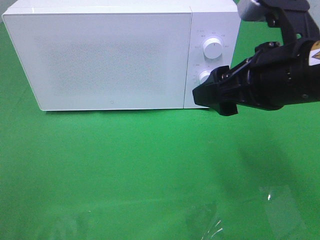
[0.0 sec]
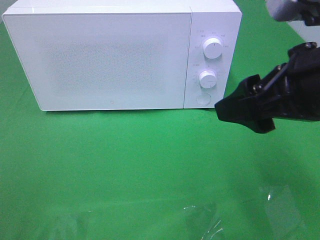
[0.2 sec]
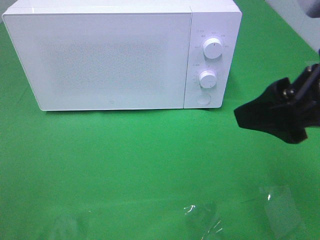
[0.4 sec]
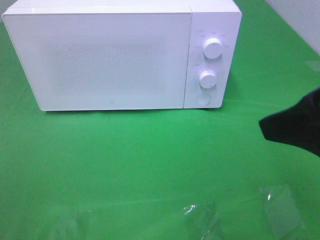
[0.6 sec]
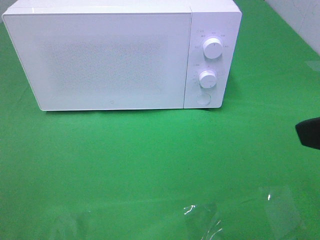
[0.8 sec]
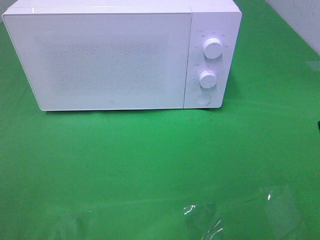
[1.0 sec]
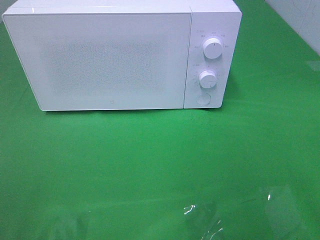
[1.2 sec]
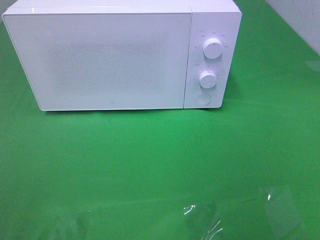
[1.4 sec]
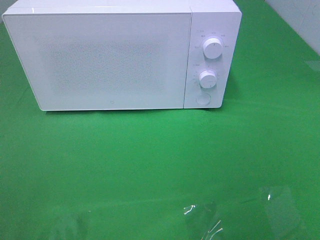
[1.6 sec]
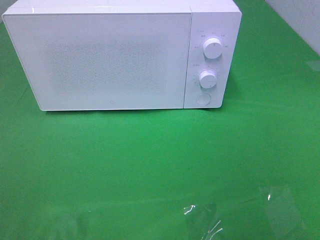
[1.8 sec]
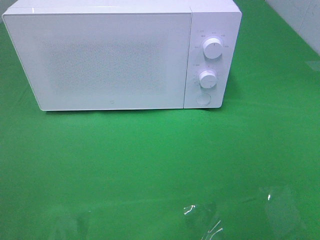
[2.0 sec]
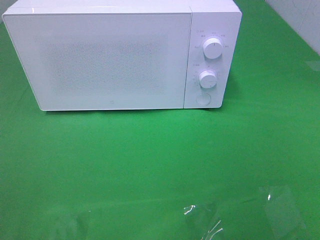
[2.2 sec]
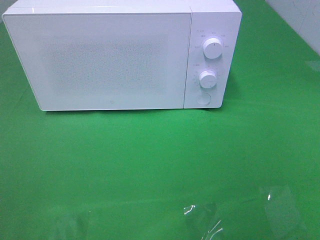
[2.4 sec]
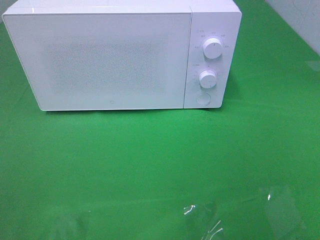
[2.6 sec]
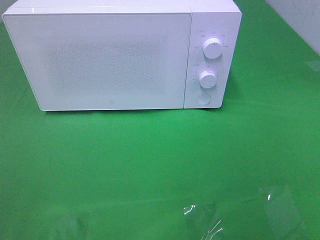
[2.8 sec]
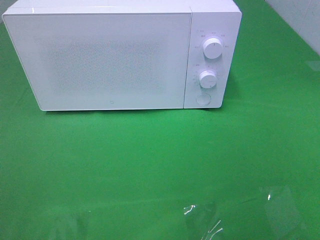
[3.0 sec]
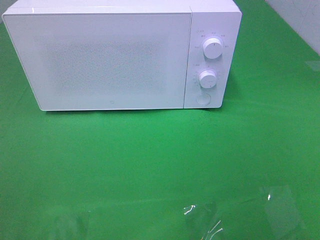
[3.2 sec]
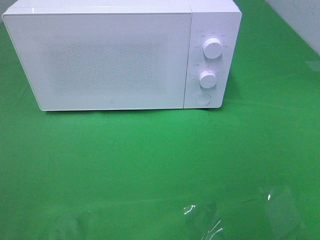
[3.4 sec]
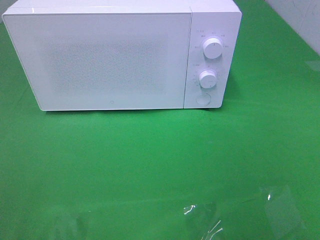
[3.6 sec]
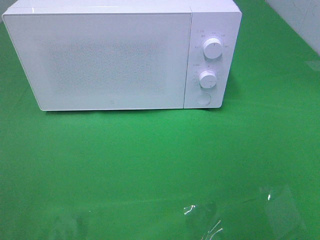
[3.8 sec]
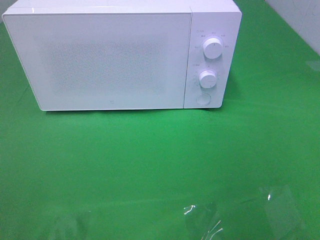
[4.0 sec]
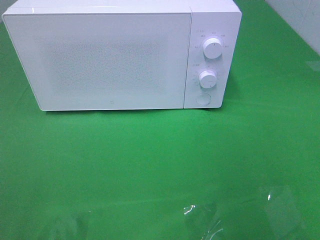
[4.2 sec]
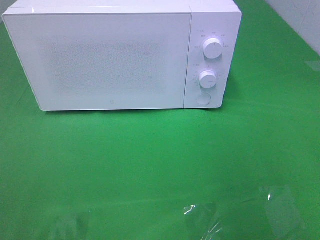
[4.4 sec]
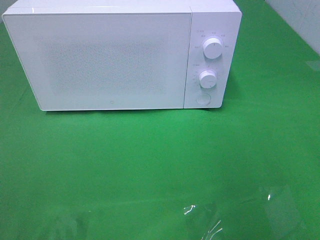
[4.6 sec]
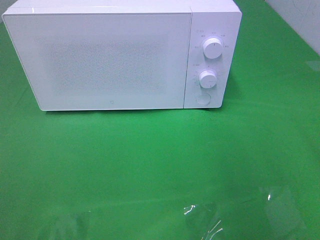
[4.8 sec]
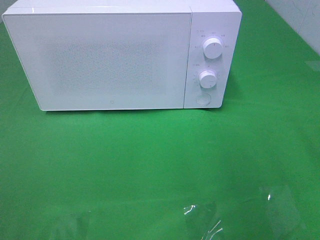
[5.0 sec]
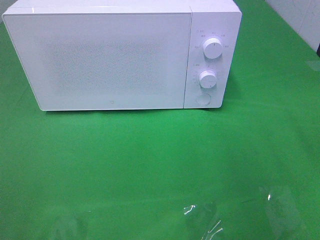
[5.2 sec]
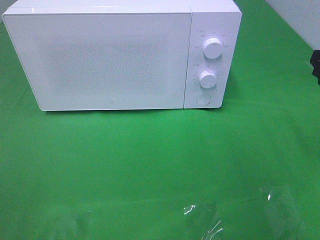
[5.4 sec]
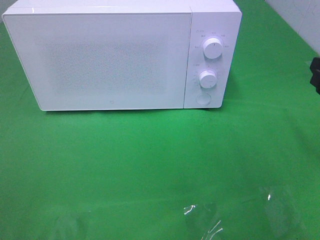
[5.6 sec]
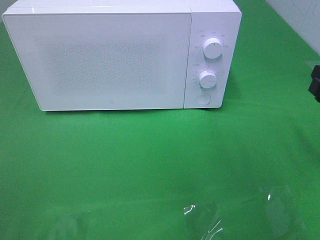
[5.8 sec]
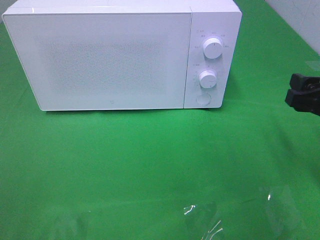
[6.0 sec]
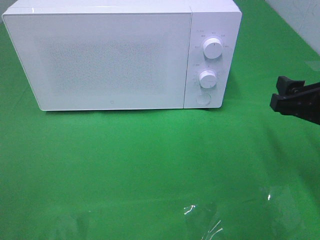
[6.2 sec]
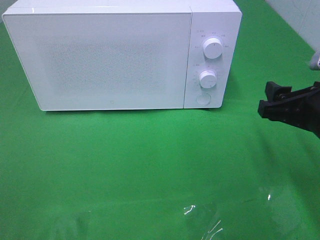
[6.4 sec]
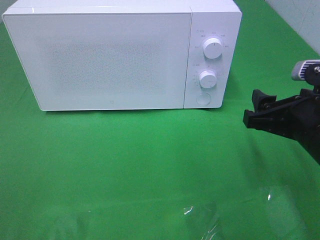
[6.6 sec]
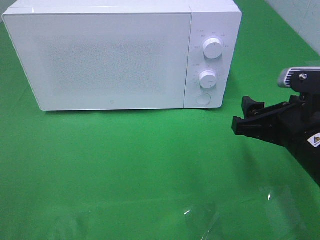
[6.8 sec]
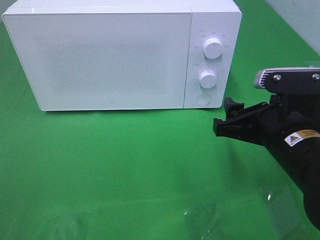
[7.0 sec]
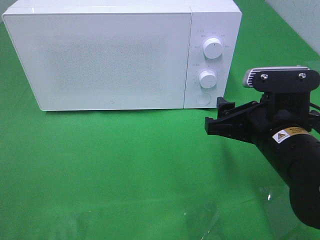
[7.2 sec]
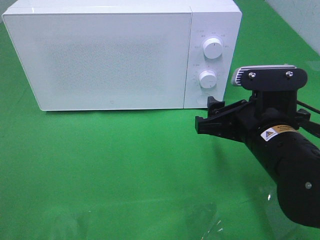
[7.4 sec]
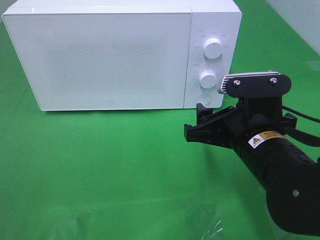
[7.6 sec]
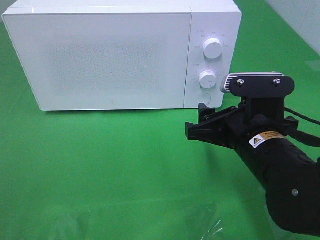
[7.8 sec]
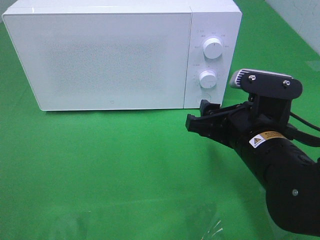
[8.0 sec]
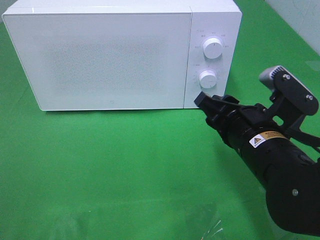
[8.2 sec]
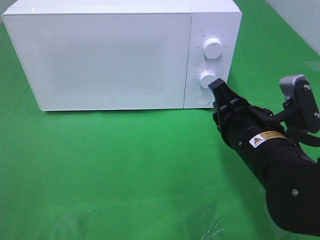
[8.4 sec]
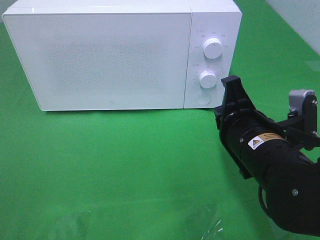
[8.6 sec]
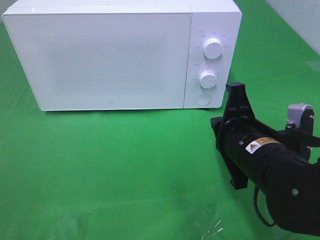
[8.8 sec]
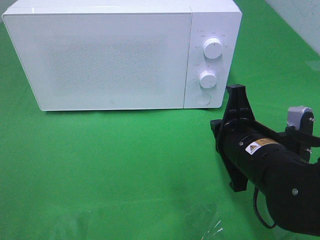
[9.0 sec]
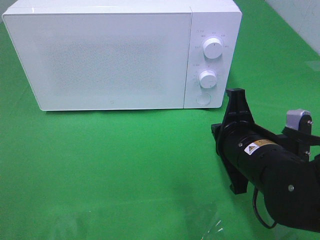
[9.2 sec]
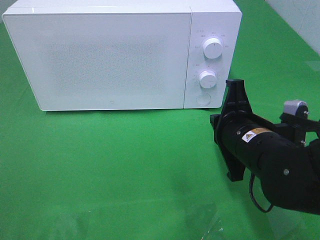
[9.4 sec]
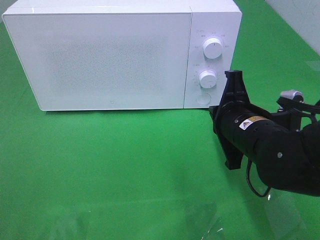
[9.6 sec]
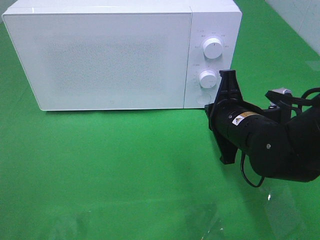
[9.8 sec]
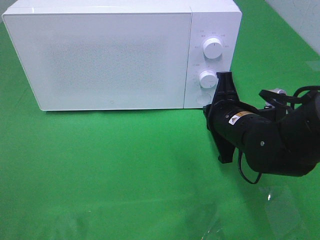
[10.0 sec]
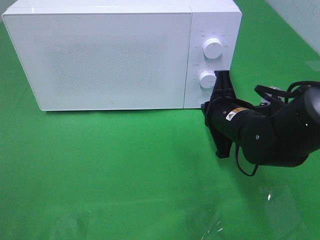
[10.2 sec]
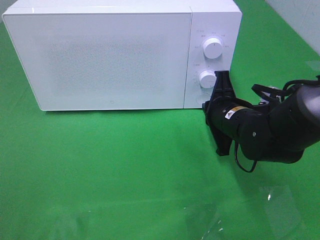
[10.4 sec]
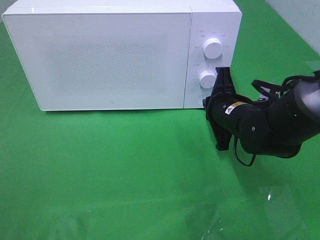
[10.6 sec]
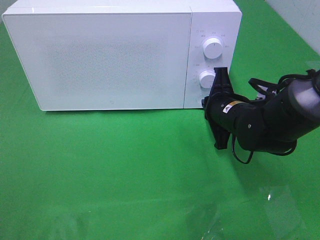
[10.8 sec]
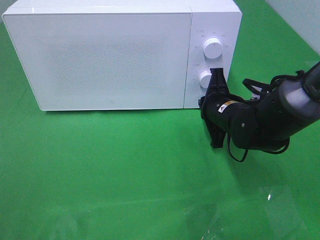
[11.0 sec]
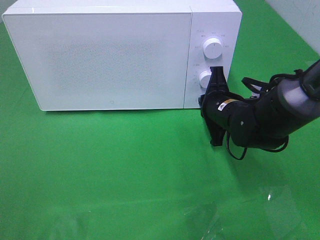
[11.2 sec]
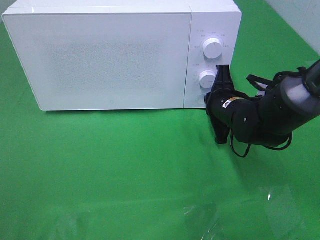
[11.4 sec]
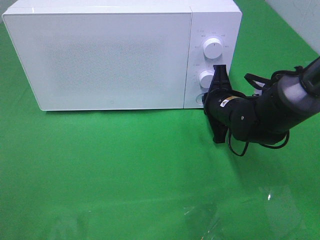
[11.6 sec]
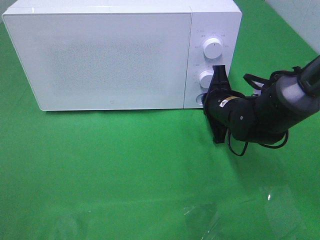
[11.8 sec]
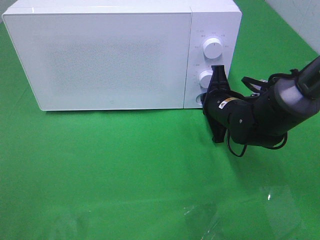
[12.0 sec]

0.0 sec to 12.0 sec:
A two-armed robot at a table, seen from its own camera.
Task of the whole recording: Heat the burger.
0.0 sec to 1.6 sec: The right gripper is displaced backward and to the right by approximately 20 cm.
4.4 sec to 6.0 sec: The right gripper moves downward and forward, some 15 cm.
6.0 sec to 7.6 sec: The right gripper is displaced to the left by some 15 cm.
7.6 sec to 9.0 sec: The right gripper closes its fingers.
9.0 sec to 10.4 sec: The right gripper goes about 10 cm forward.
10.4 sec to 12.0 sec: The grippers stay close to where they were, moving slightly.

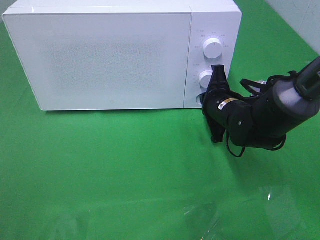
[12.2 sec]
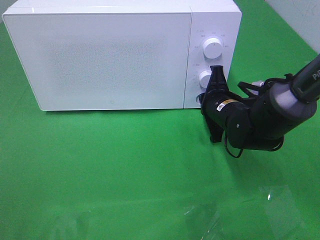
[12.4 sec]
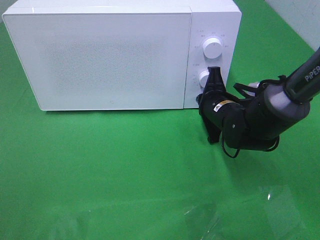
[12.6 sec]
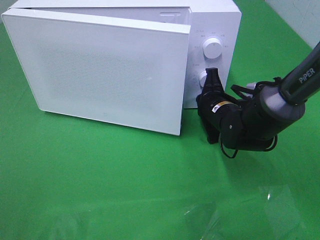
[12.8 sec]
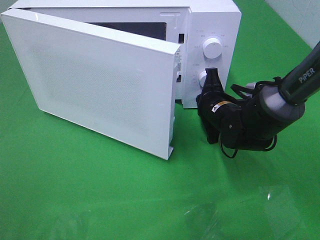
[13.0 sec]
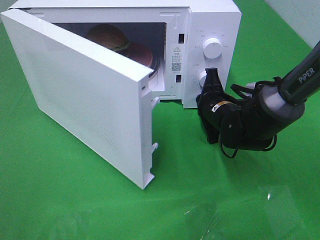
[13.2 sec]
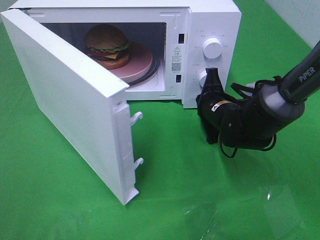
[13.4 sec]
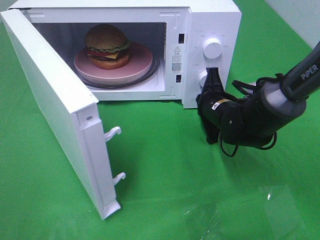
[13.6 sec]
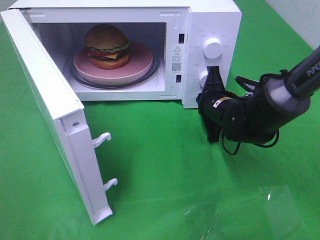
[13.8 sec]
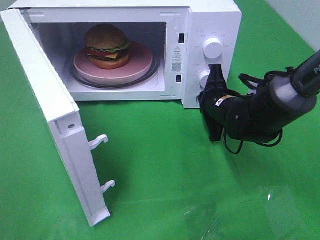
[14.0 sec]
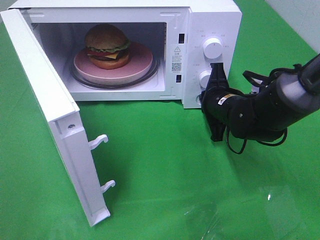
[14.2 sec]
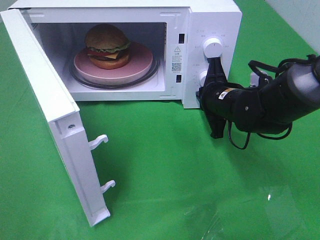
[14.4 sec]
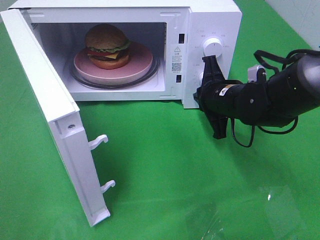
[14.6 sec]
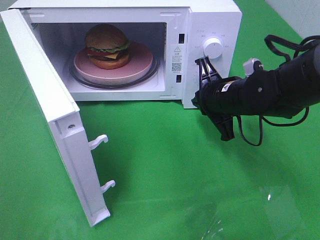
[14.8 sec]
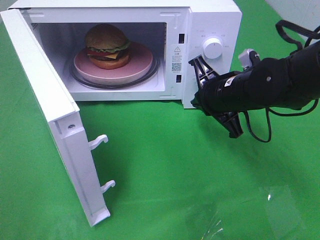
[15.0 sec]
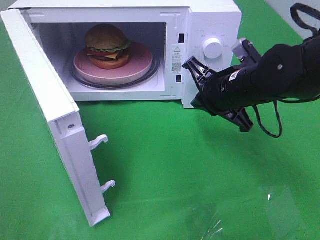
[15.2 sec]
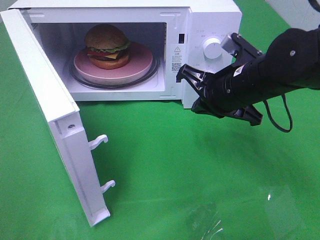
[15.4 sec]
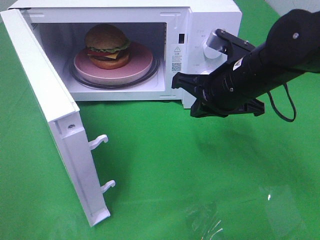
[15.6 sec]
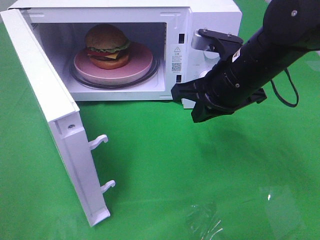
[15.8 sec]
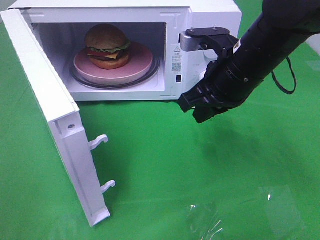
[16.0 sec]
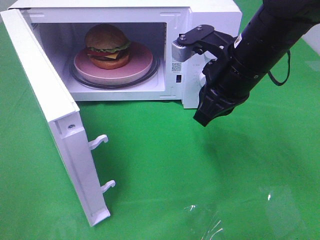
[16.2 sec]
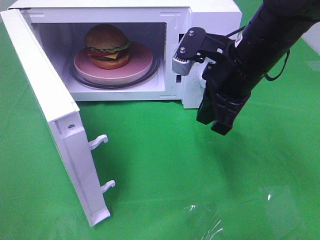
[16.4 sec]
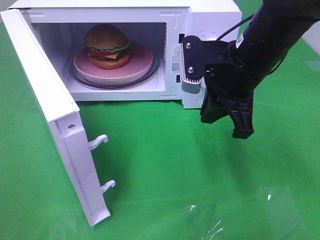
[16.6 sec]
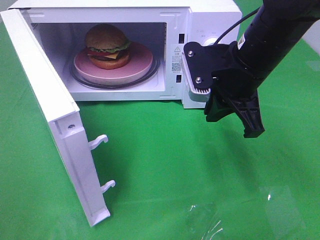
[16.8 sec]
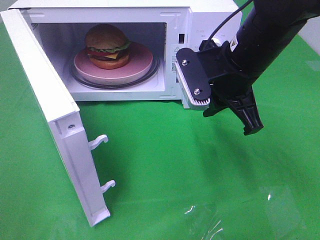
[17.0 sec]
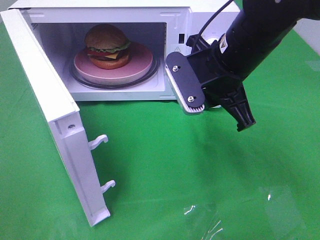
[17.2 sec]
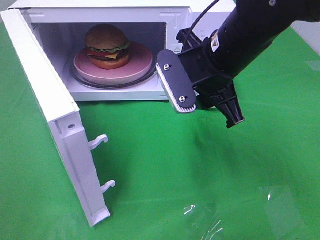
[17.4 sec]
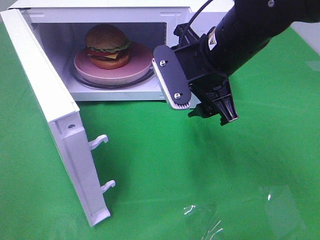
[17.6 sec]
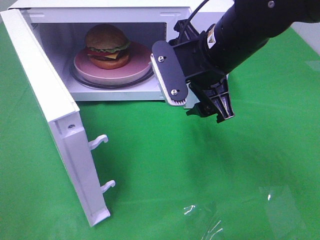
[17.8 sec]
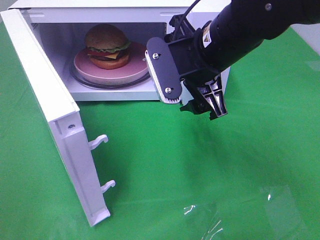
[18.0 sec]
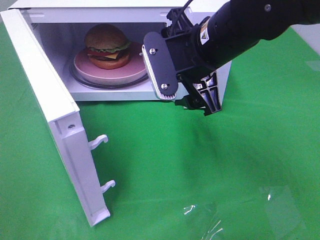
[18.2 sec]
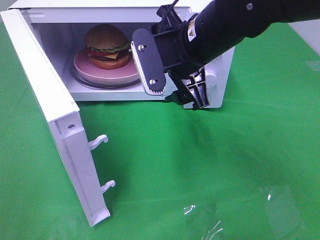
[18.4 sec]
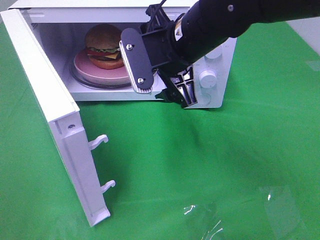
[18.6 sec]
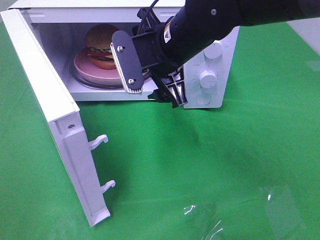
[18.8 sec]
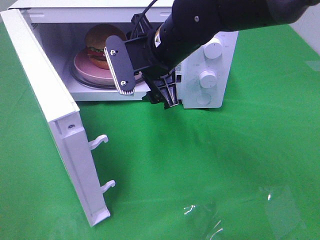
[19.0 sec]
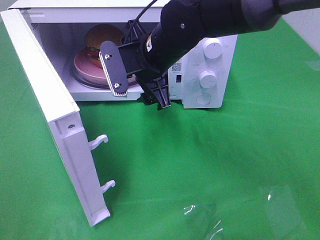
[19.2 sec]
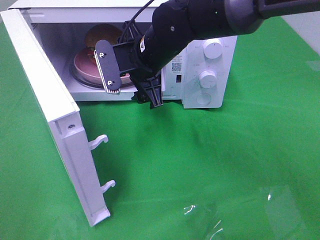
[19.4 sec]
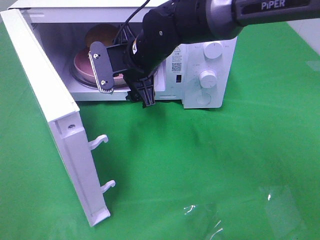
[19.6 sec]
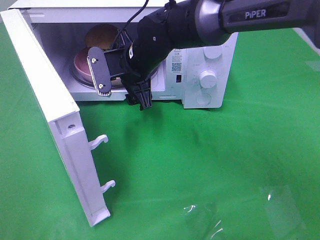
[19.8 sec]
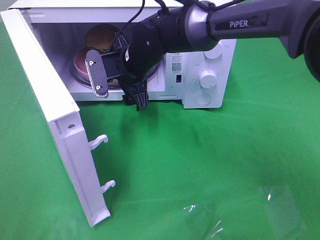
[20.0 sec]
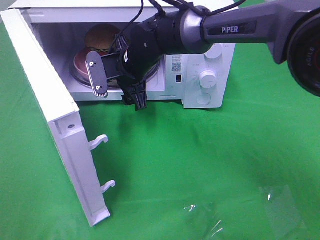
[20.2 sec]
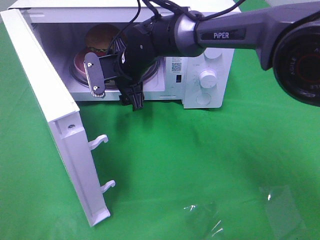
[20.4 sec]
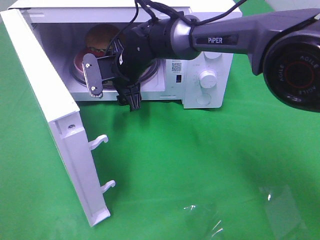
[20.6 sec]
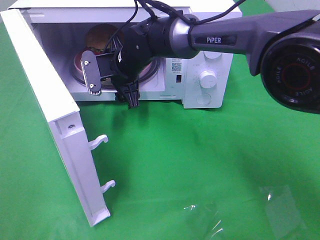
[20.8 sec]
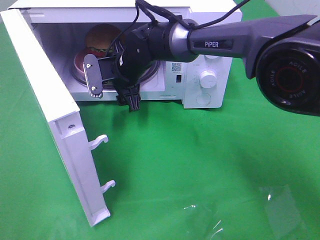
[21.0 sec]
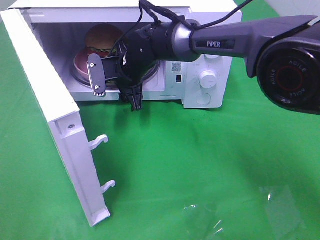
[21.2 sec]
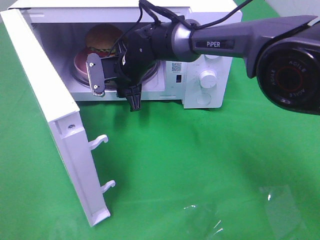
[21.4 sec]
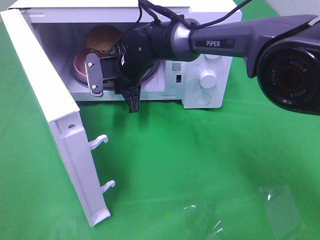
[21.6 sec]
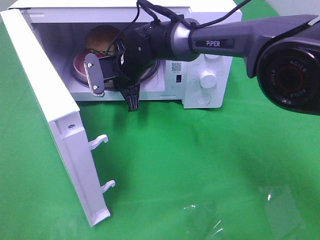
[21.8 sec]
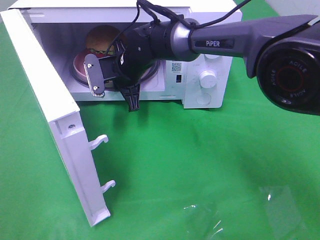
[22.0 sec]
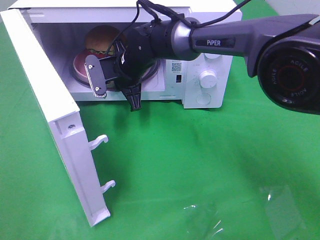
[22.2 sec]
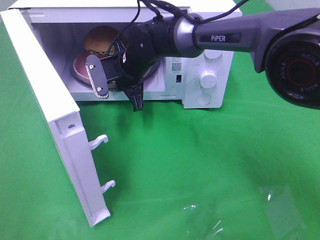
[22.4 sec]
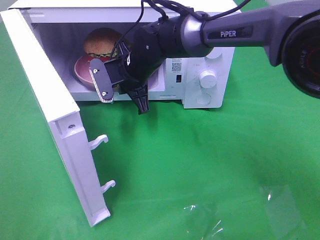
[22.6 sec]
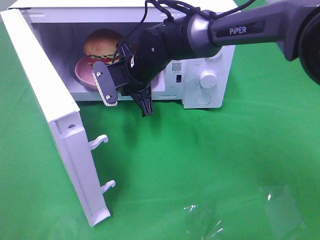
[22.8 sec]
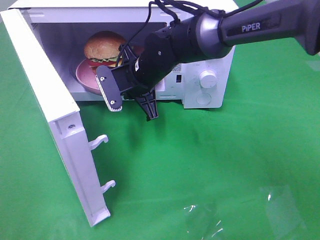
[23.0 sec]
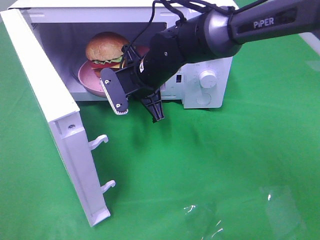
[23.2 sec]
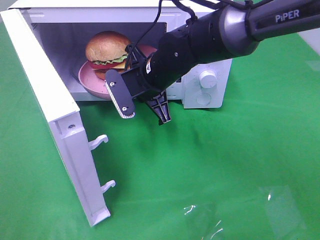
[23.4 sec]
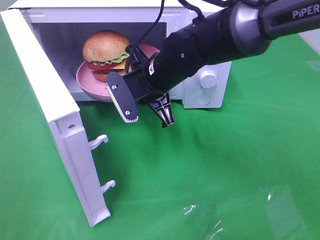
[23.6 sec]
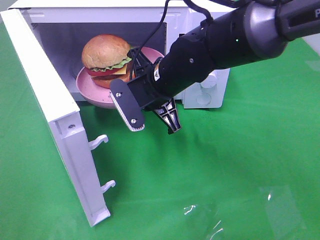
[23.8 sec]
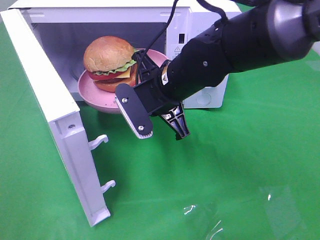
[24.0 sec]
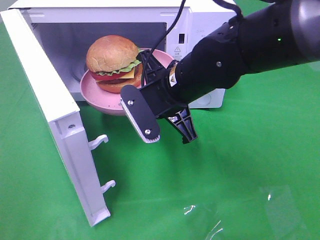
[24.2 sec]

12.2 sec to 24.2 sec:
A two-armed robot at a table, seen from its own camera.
Task of the whole recording: Heat the burger.
Step, 12.2 sec to 14.6 sec: Right hand: press the switch.
Step, 14.8 sec to 21.8 sec: Right hand: grab the plate with the hamburger.
13.8 sec to 15.2 sec: The right gripper travels upward by roughly 10 cm.
15.2 sec to 16.6 sec: The right gripper shifts roughly 5 cm upward.
16.6 sec to 18.2 sec: The right gripper is displaced to the left by about 5 cm, and opens up.
18.2 sec to 19.8 sec: The right gripper is displaced to the left, forward and downward by about 15 cm.
19.8 sec to 21.2 sec: The right gripper changes place by about 5 cm.
21.2 sec to 22.6 sec: The right gripper closes up.
22.6 sec to 24.2 sec: The right gripper goes roughly 15 cm backward and to the right.
